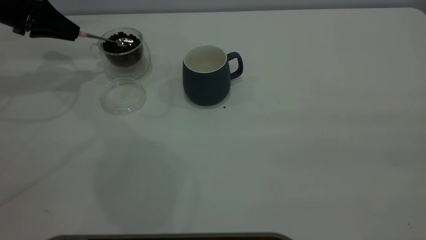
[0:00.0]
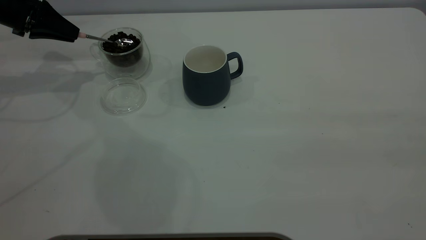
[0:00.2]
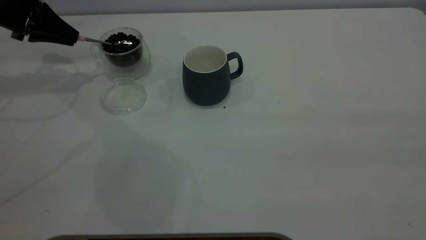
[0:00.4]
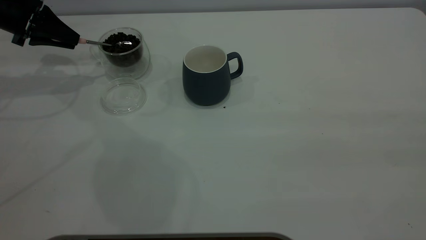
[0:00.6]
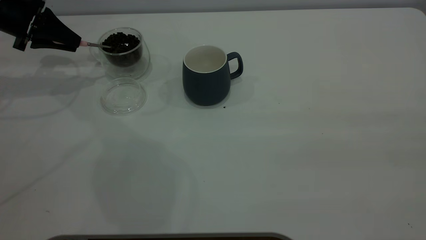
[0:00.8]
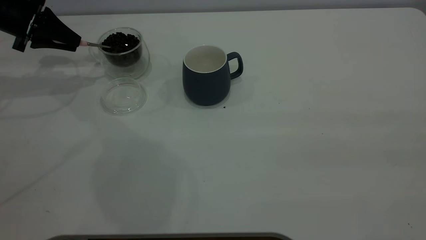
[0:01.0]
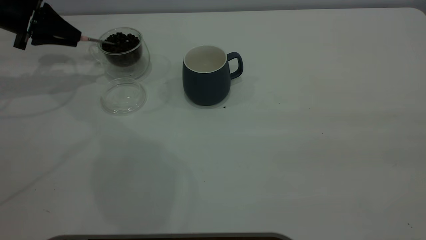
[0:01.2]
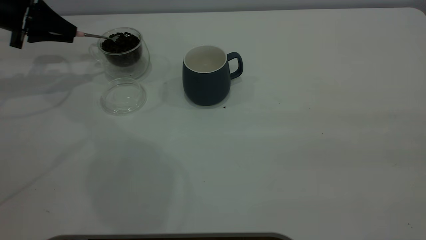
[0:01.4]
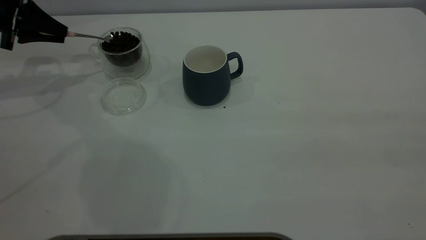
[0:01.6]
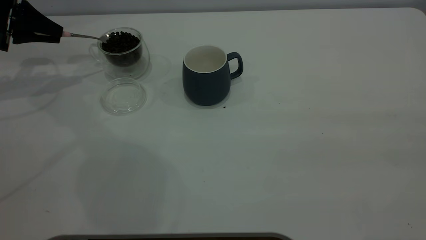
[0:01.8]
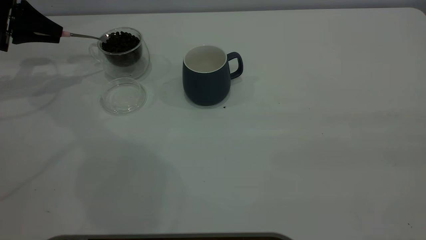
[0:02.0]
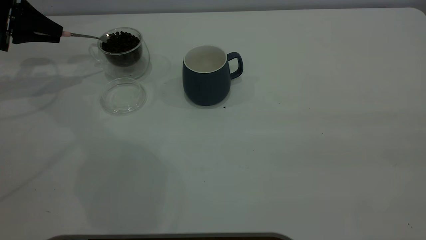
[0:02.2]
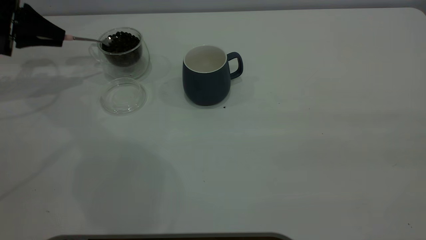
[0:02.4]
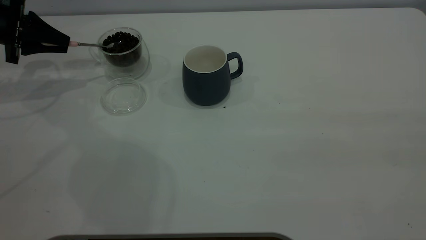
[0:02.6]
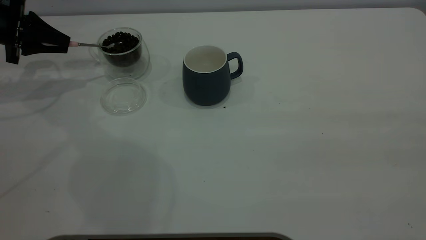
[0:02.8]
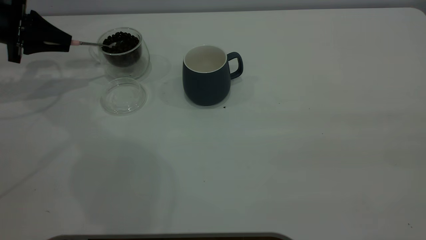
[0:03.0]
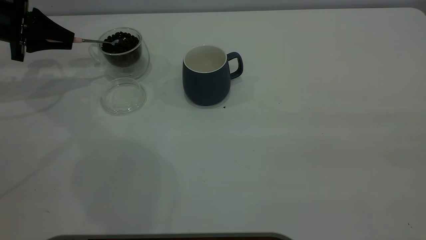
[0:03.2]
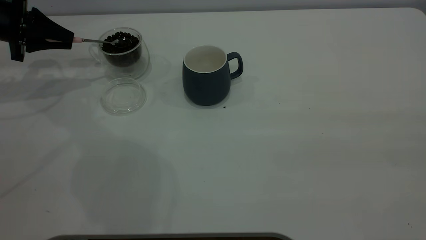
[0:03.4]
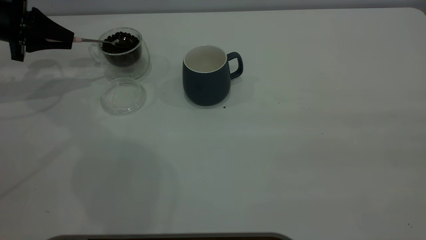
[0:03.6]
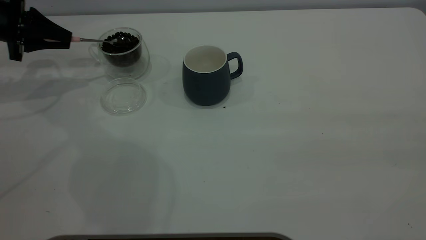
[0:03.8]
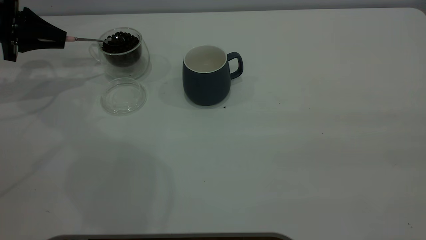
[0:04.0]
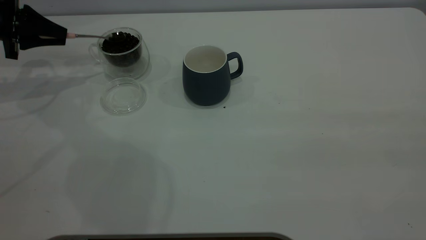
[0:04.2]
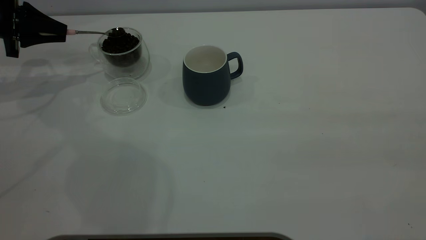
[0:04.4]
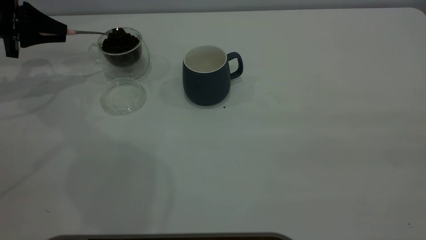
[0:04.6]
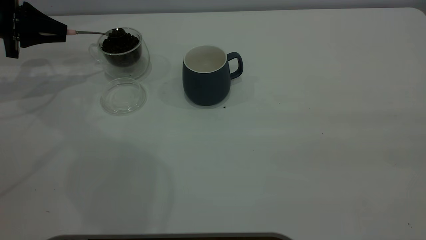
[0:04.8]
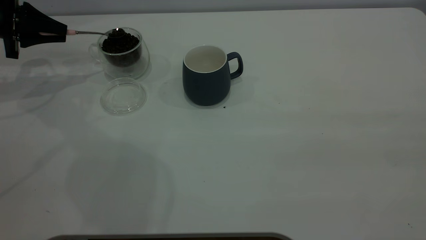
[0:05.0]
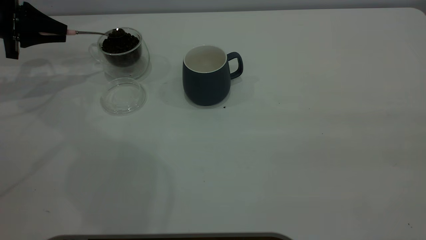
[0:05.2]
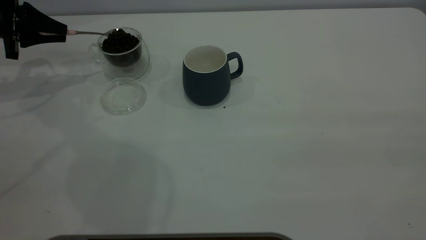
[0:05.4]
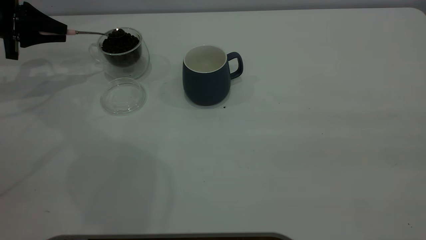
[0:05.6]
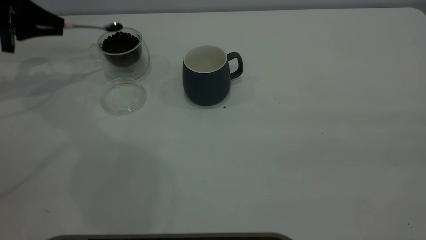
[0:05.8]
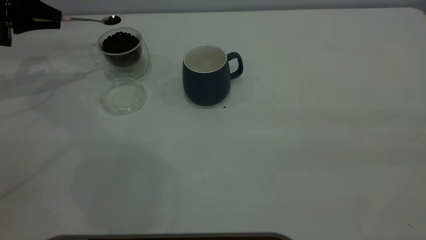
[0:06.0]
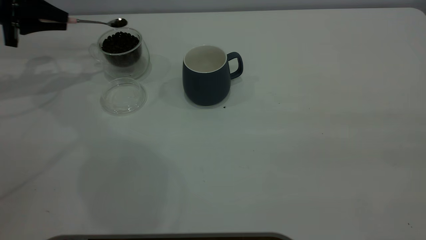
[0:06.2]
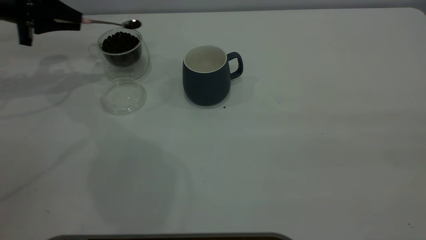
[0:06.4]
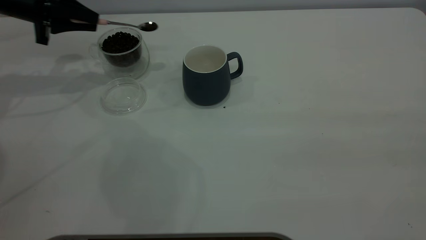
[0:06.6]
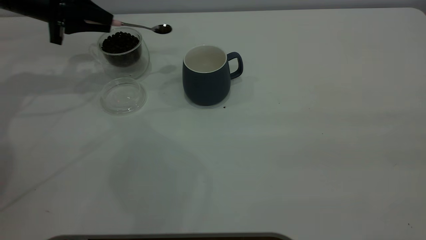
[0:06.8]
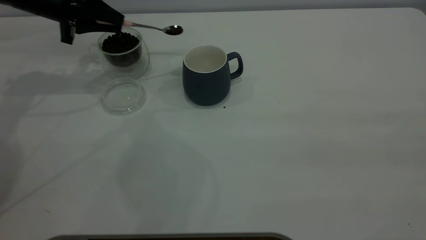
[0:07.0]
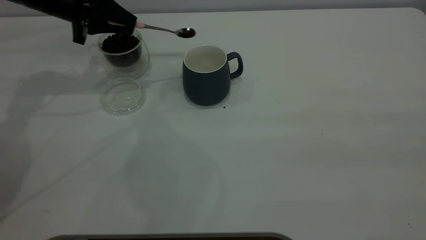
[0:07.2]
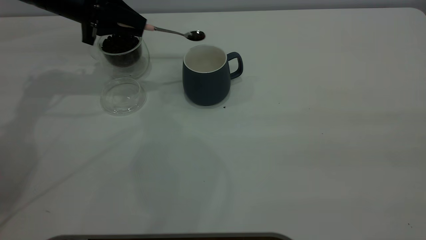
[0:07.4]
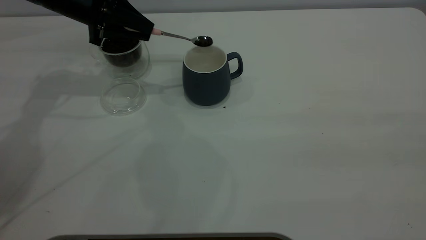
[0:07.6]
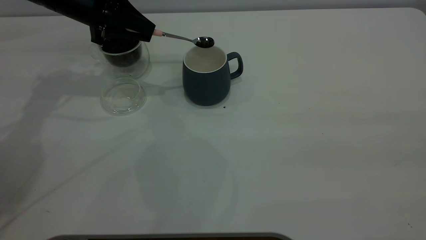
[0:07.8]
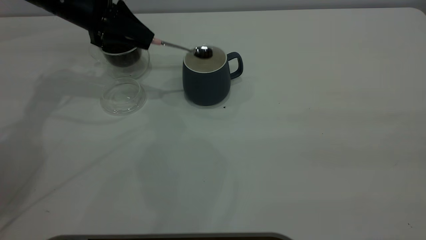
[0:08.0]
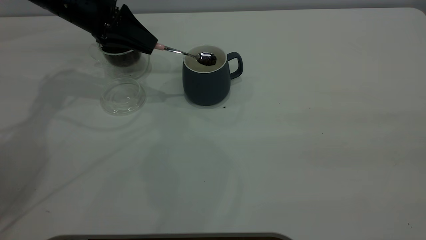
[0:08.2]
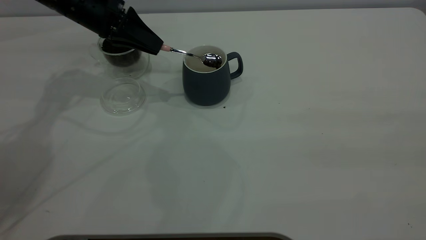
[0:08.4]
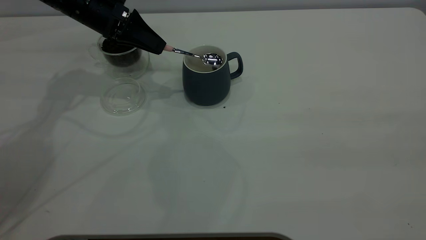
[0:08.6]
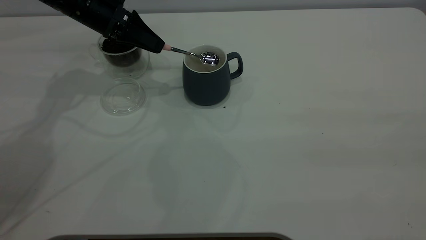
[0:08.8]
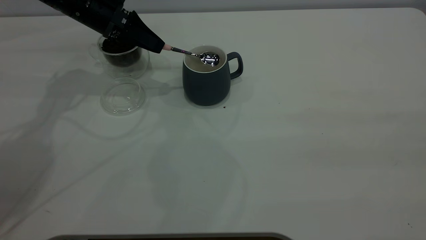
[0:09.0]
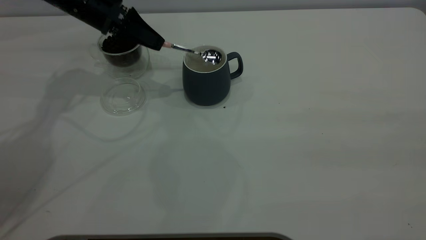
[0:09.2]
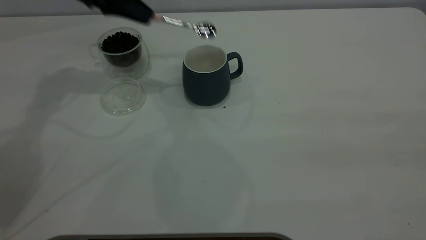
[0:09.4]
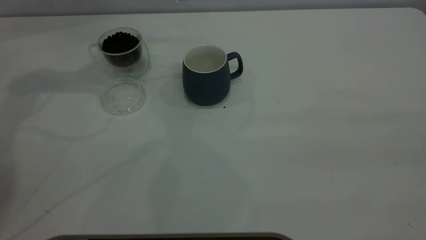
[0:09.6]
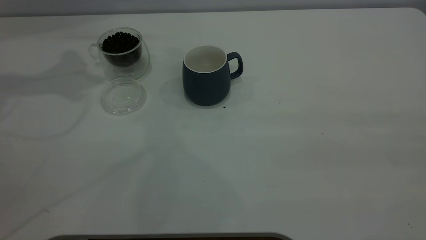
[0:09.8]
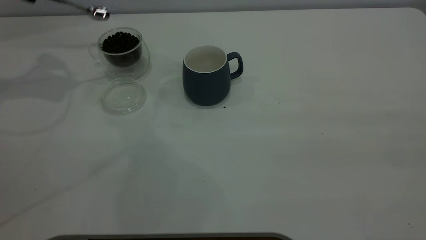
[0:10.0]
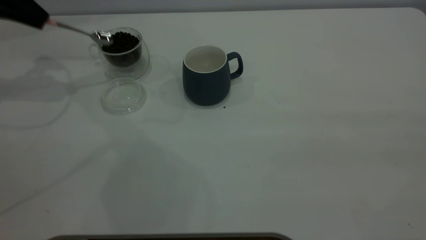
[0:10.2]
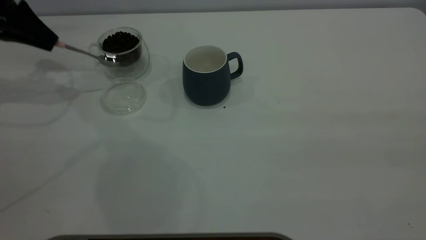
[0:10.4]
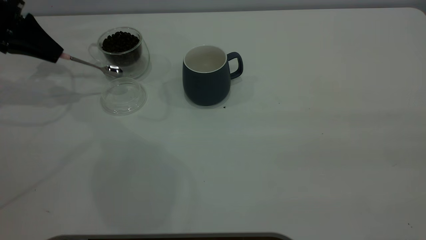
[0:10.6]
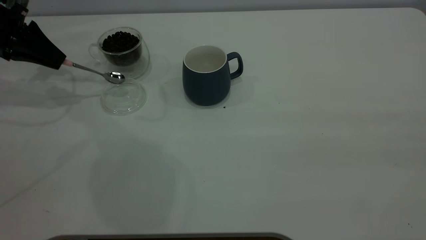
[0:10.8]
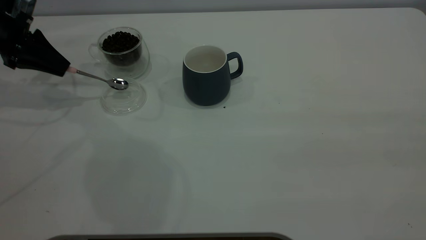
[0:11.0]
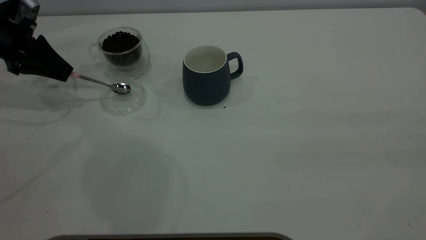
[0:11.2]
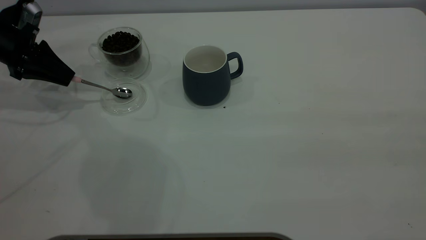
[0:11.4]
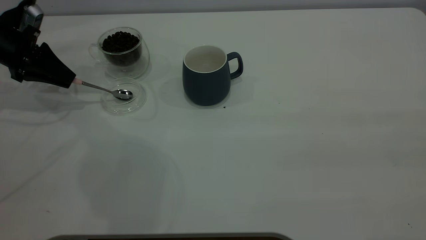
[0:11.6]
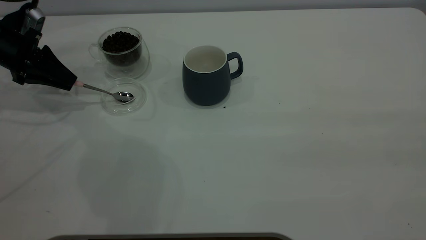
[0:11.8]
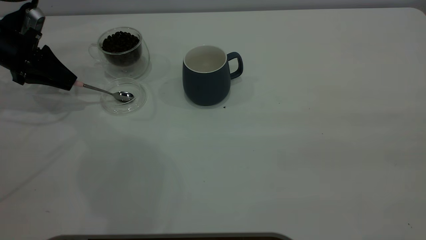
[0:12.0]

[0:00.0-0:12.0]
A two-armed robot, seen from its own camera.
Task of the whole recording: the right gripper place the grey cup in the center of the table, the left gripper take the pink spoon from the cup lid and scoop out the coffee beans from the coffee cup and put them into the grey cup, the left gripper put the spoon back into the cup lid.
Step, 0:00.0 to 0:09.2: Scoop a spoonful of beans into the cup.
0:01.6 to 0:03.0: The grippers stay close to where they were, moving slightly.
0:03.0 to 0:04.4: The two grippers keep their place.
0:04.4 to 0:06.0: The grippers make only small movements.
0:06.0 to 0:07.6: The left gripper heads to the right, covering roughly 15 cm.
0:09.0 to 0:10.4: The left gripper shifts roughly 15 cm to the left.
0:10.4 to 0:12.0: The left gripper goes roughly 5 cm downward.

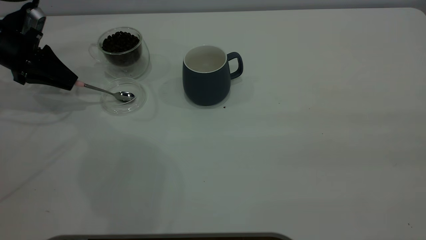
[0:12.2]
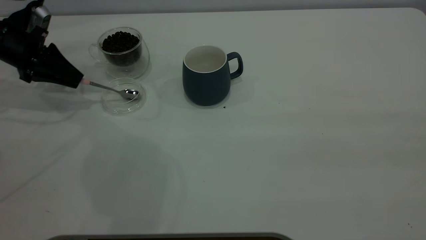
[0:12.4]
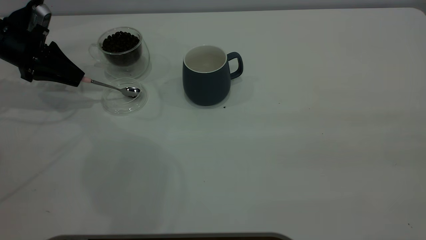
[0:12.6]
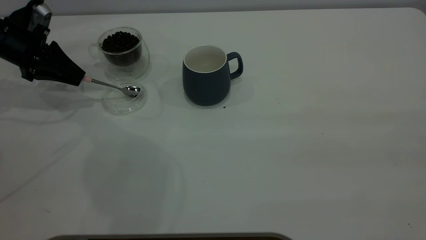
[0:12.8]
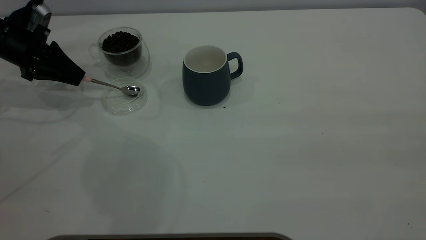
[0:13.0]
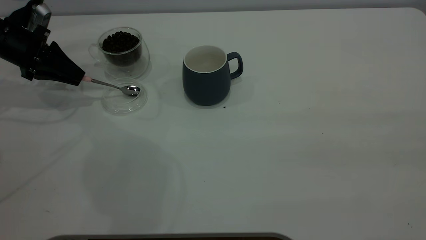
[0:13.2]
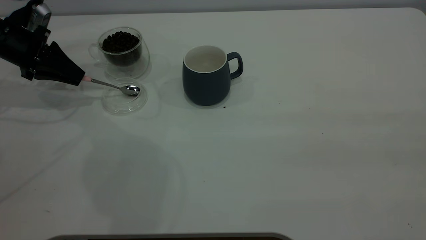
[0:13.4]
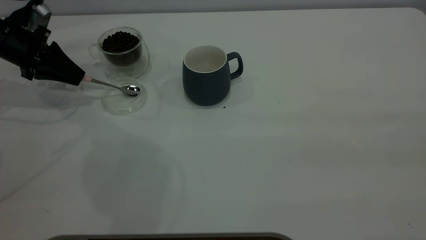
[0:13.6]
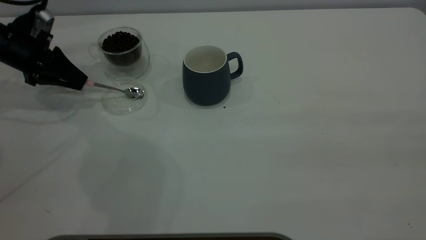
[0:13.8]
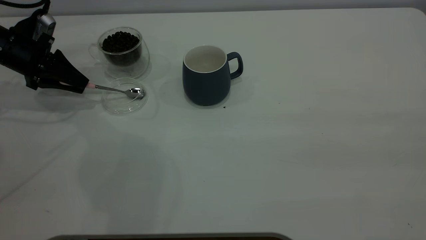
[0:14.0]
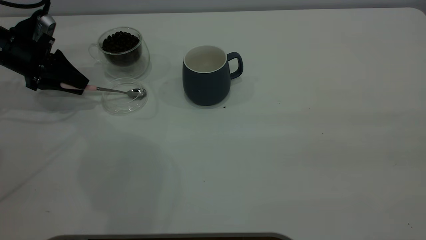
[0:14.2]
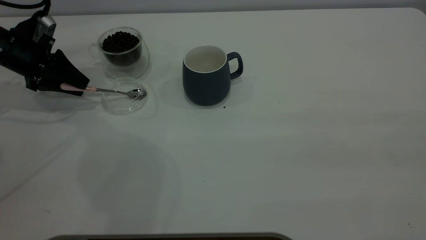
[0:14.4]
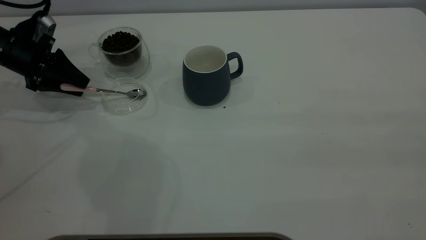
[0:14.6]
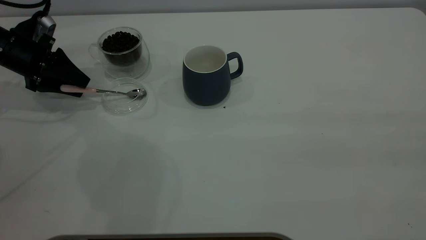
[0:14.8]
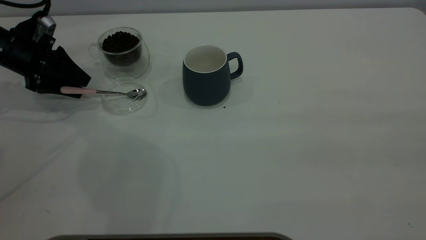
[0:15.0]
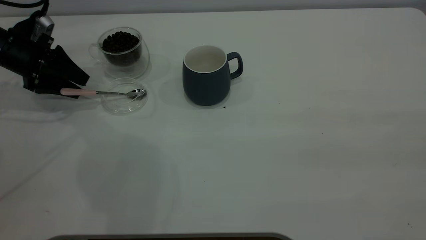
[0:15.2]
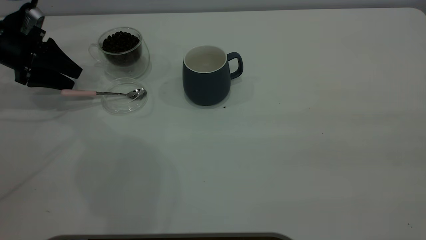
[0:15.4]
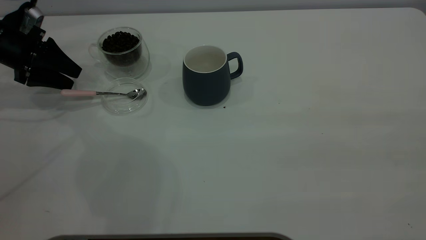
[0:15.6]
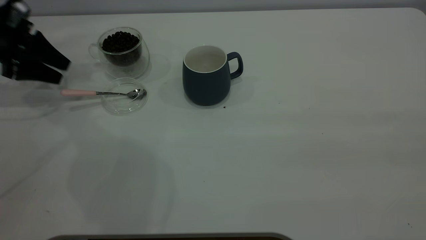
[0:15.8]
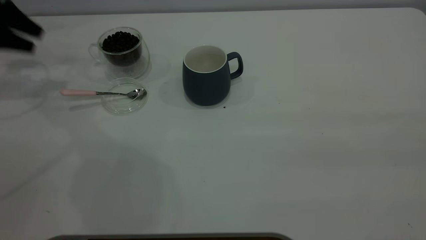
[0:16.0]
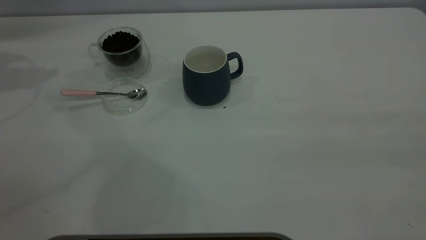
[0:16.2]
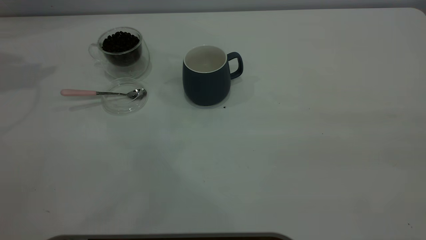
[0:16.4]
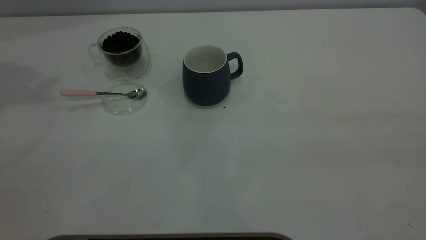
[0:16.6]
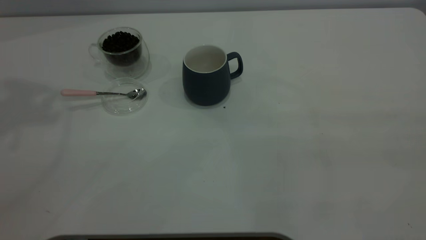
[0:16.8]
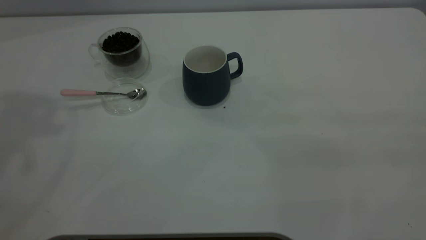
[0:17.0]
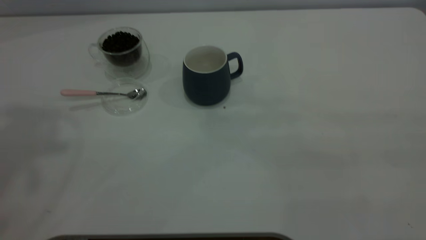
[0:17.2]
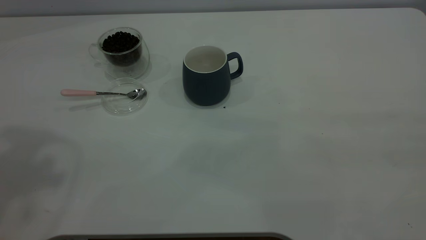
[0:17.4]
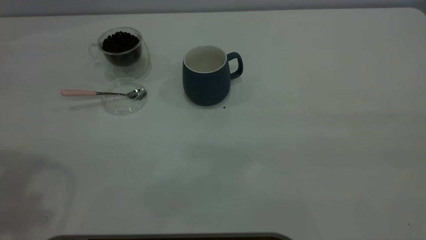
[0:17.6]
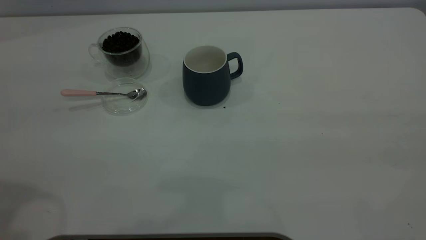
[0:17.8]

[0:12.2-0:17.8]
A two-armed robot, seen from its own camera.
Task of the whole recording: the right gripper place the grey cup in the center of the table, the left gripper take the pink spoon from the cup lid and scoop out the coffee beans from the coffee cup and put them into the grey cup, the left gripper put the spoon back into the cup lid.
Step, 0:12.2 to 0:15.8: Place the spoon back in its original place.
0:12.2 to 0:13.6: The two grippers keep their place.
0:13.6 to 0:15.0: The left gripper opens.
0:15.0 to 0:16.4: The left gripper goes roughly 30 cm upward.
